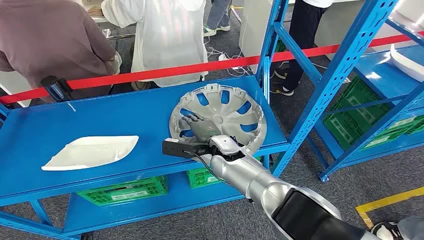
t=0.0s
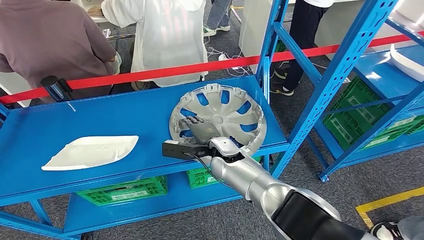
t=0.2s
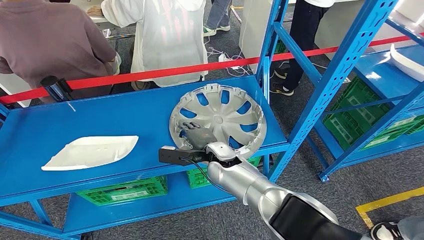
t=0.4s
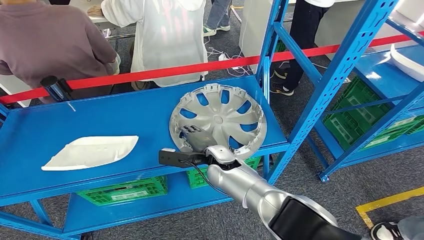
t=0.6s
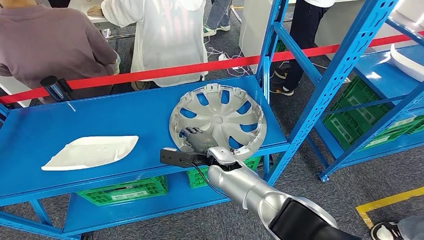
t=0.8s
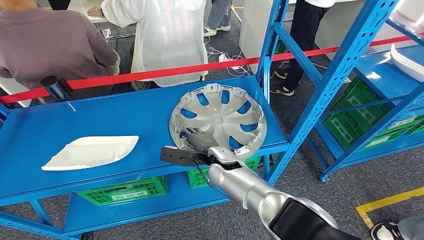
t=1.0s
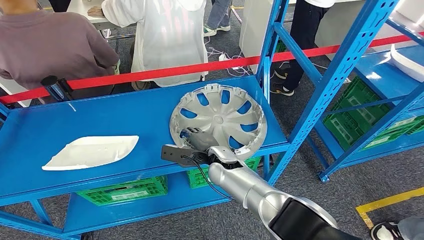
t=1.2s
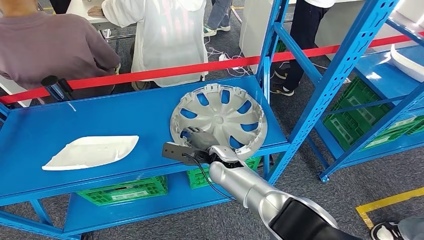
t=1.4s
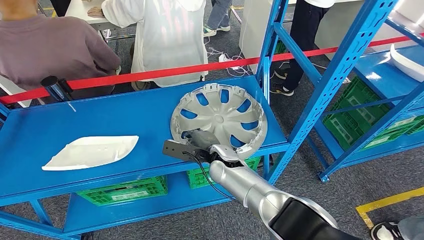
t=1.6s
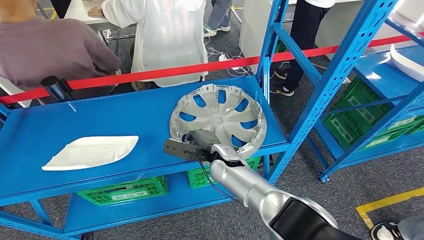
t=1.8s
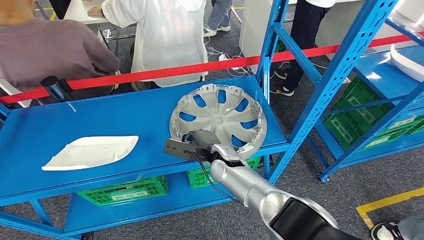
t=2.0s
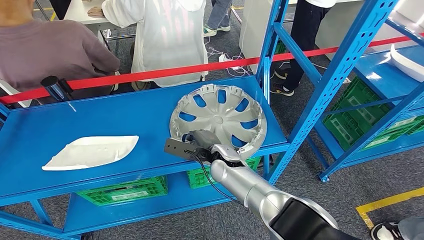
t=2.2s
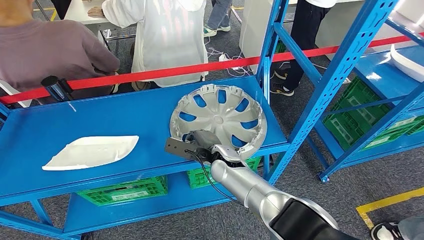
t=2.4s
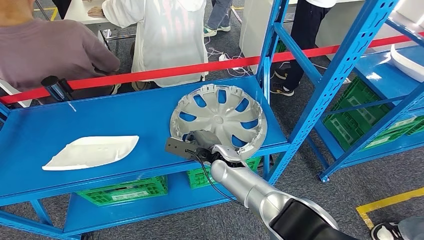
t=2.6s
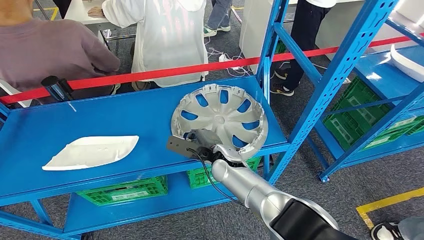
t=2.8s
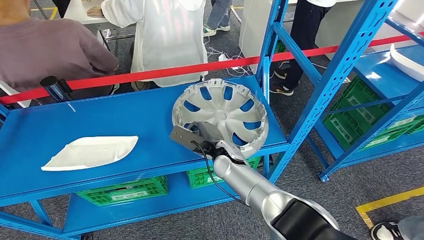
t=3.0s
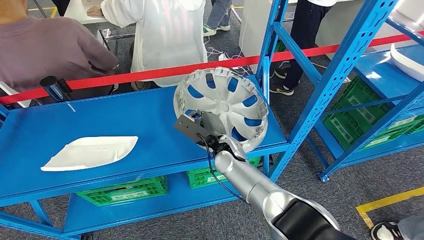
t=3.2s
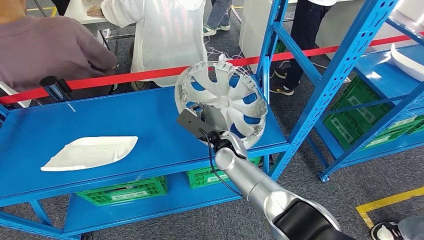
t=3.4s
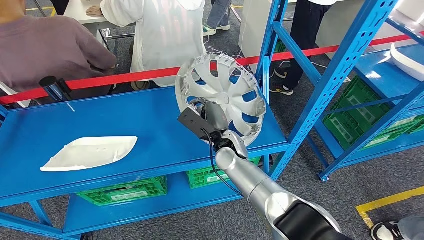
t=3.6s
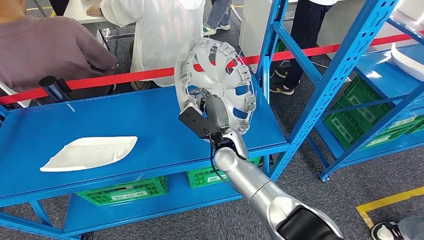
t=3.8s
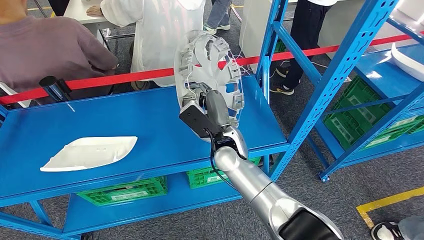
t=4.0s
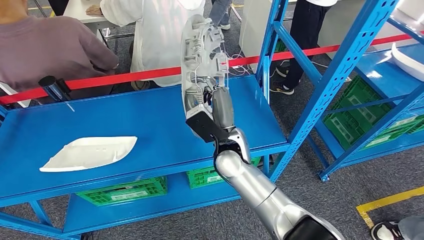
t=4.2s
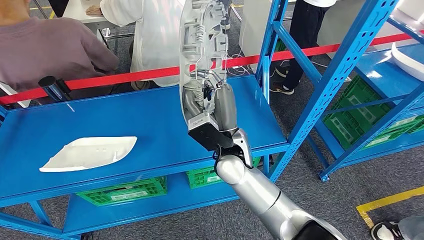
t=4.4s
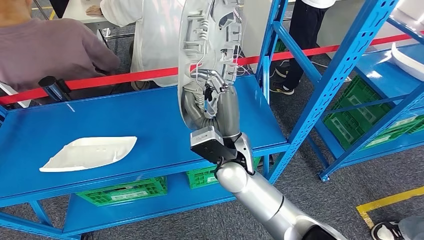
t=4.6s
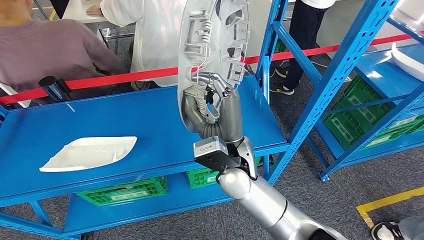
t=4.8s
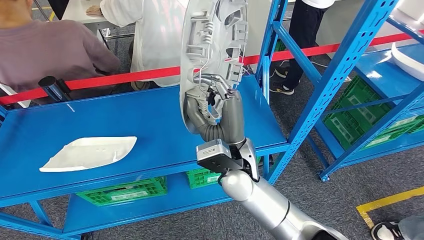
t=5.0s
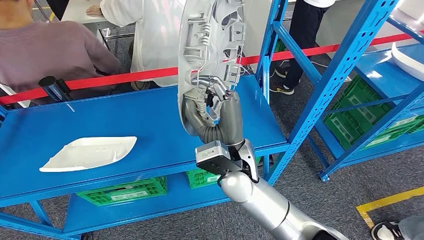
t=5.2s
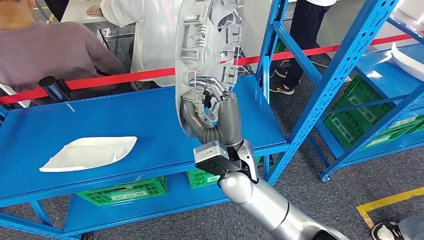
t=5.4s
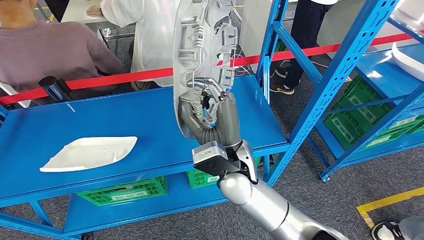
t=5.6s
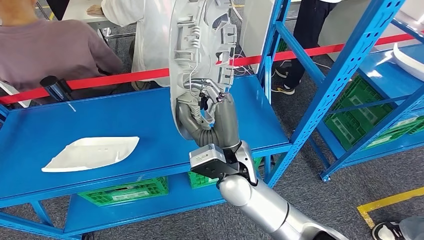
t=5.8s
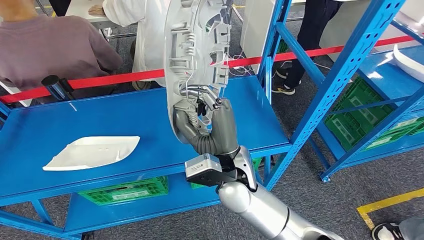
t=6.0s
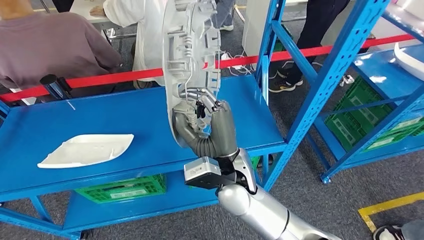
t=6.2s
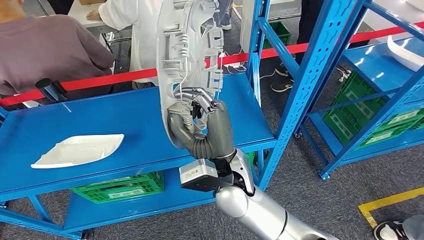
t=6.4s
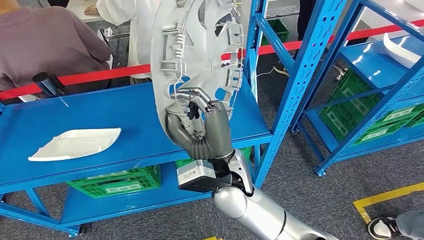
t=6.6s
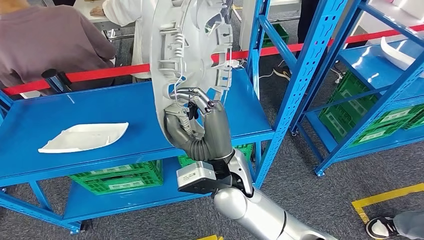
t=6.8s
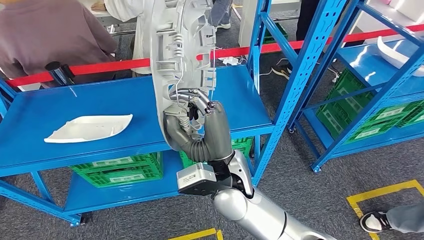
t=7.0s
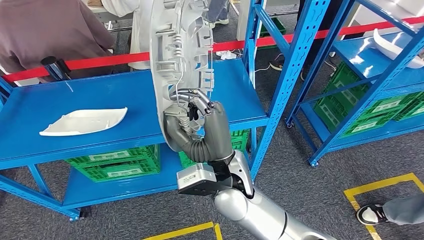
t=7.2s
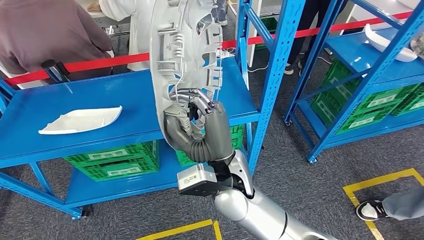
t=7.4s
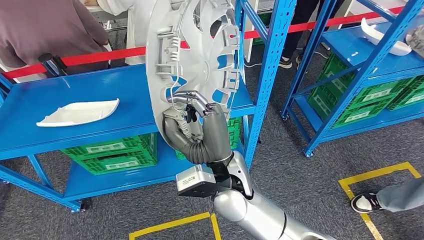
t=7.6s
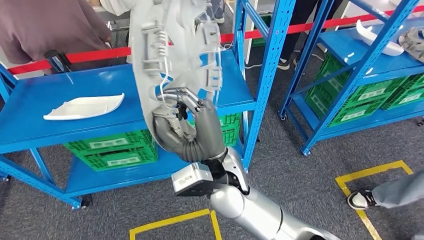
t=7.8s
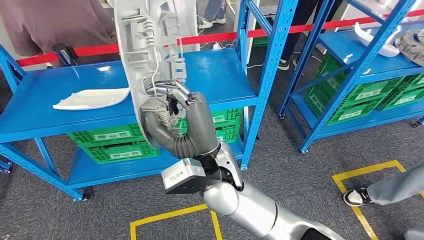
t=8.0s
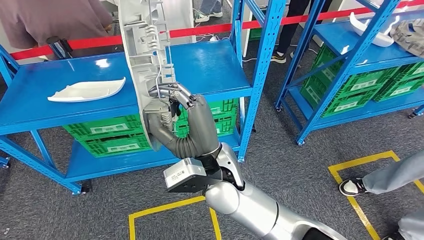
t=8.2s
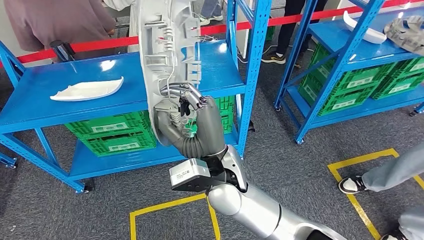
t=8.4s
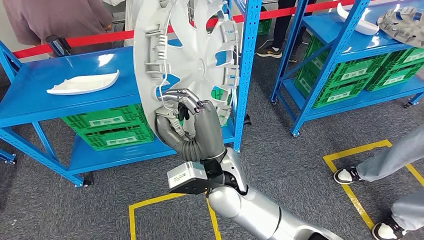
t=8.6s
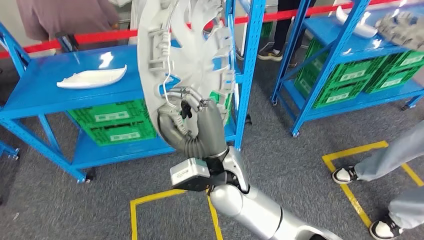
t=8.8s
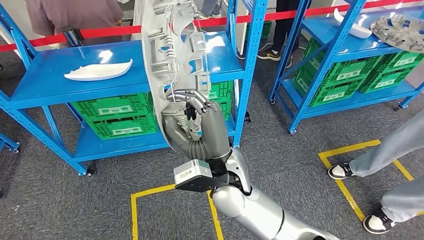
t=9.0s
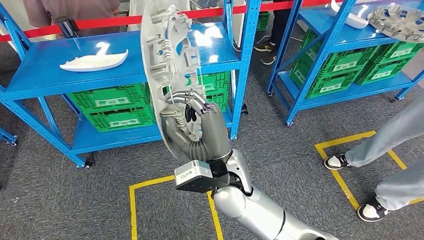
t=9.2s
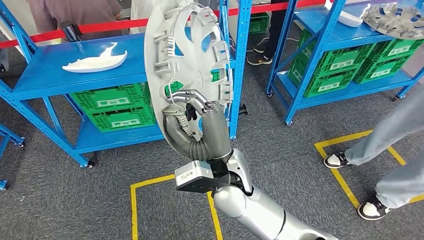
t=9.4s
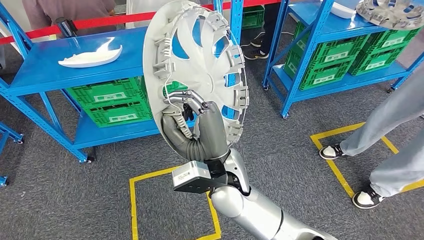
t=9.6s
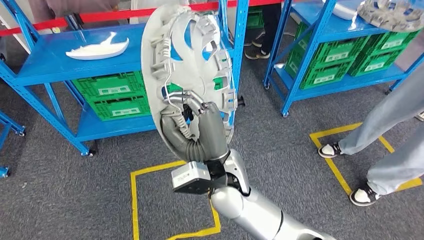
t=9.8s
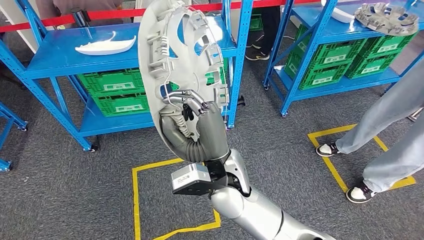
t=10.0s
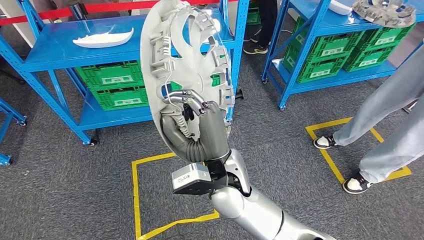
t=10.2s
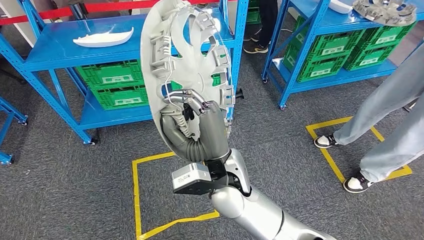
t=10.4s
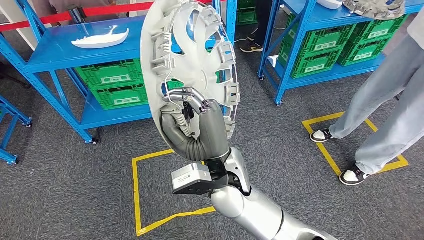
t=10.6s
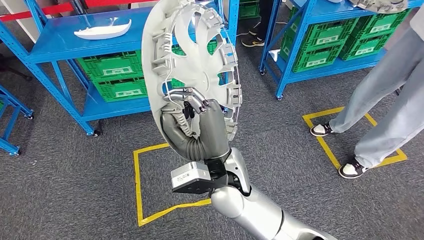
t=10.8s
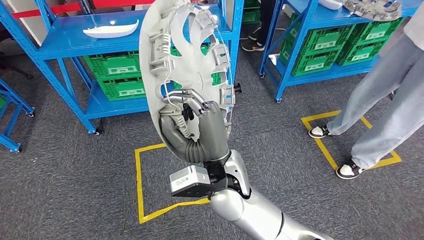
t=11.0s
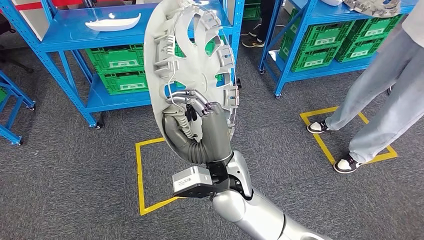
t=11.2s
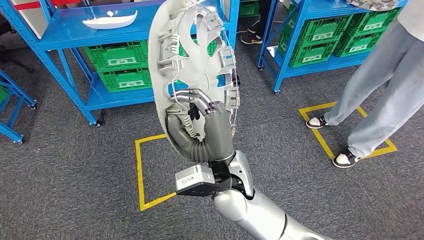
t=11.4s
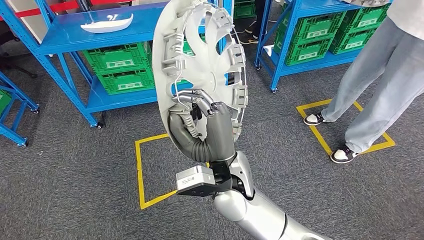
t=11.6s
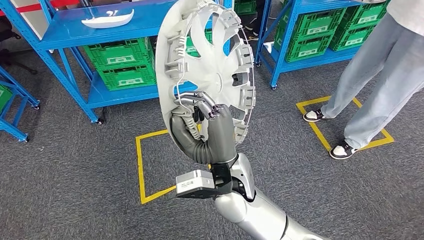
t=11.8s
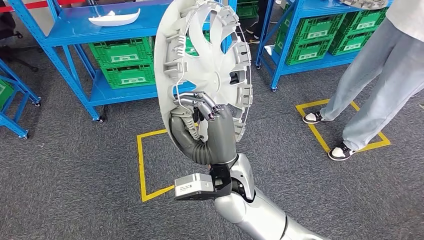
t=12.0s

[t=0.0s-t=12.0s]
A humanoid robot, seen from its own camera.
Step, t=0.0s to t=4.2s: Pick up the large material from the shelf.
t=1.6s to t=3.0s: The hands move only a little.
t=3.0s to t=4.4s: The right hand travels upward by some 10 cm.

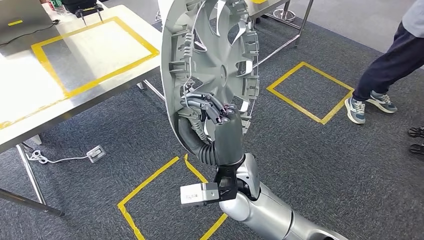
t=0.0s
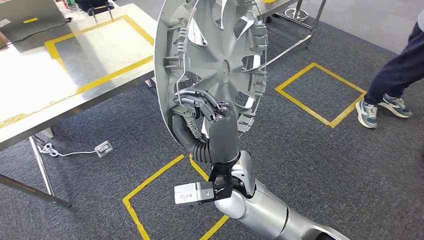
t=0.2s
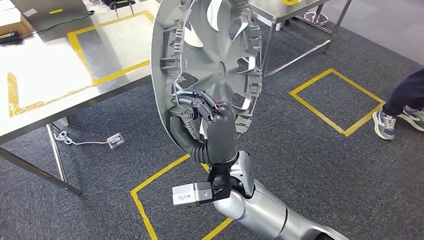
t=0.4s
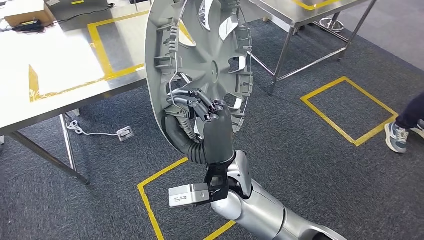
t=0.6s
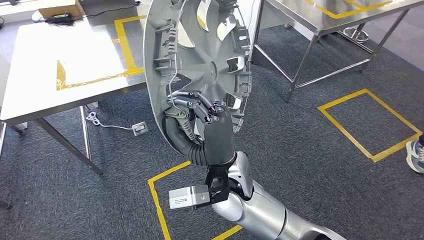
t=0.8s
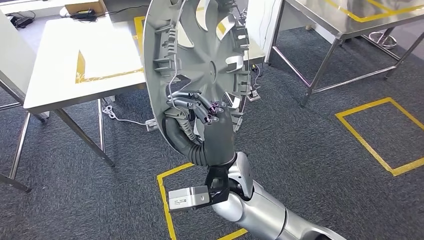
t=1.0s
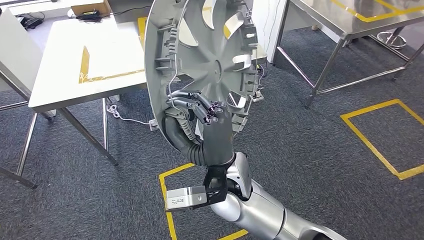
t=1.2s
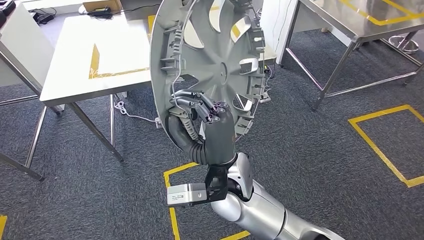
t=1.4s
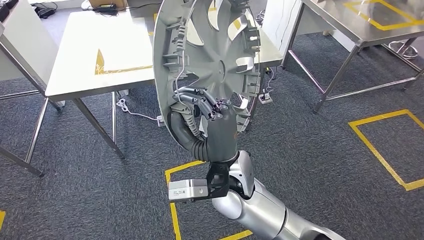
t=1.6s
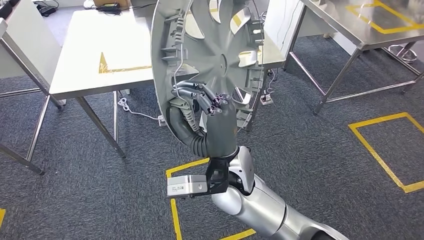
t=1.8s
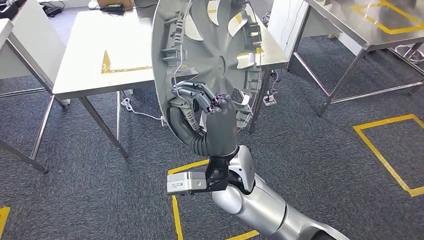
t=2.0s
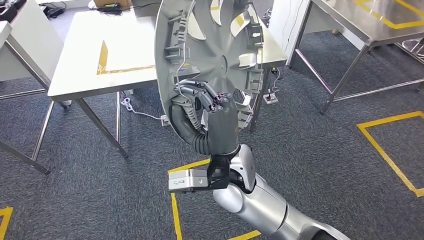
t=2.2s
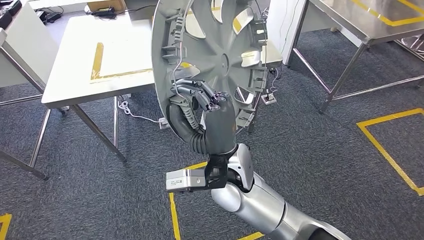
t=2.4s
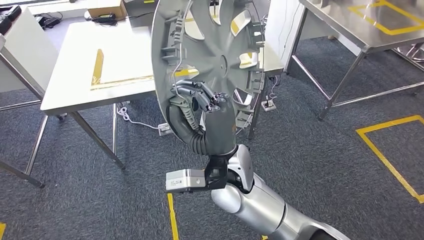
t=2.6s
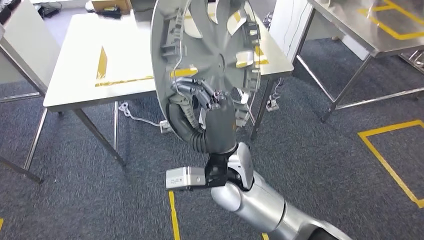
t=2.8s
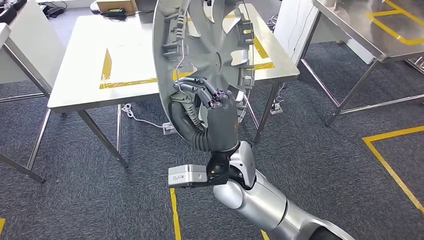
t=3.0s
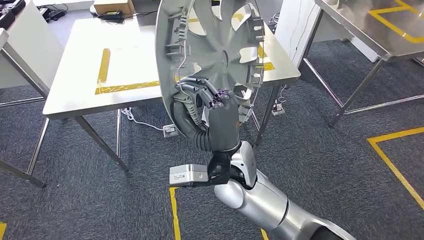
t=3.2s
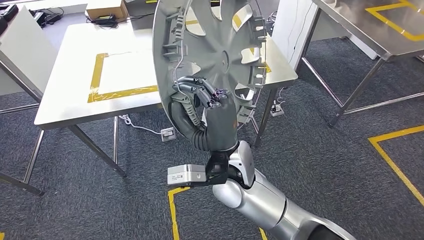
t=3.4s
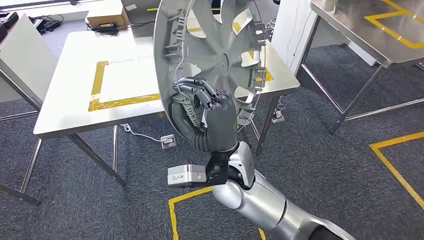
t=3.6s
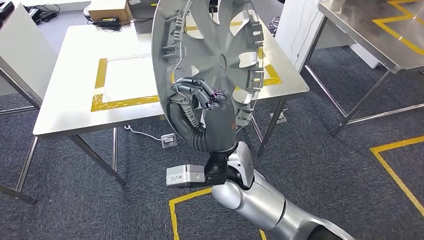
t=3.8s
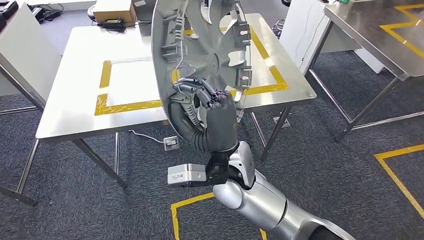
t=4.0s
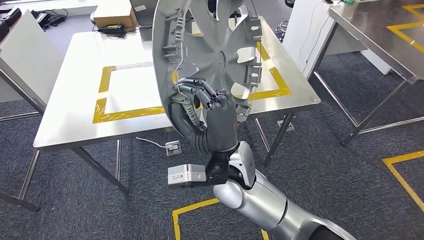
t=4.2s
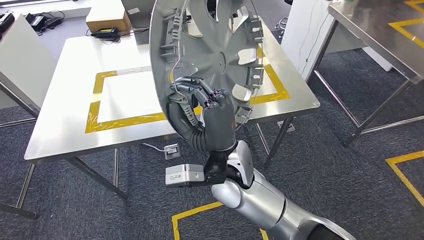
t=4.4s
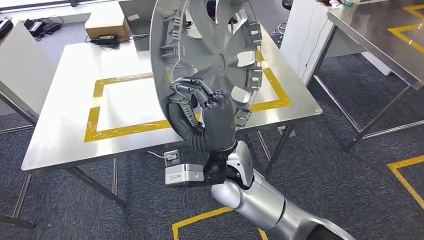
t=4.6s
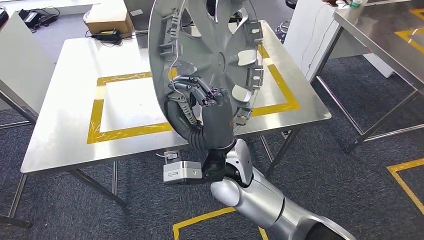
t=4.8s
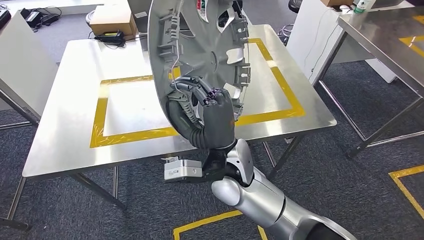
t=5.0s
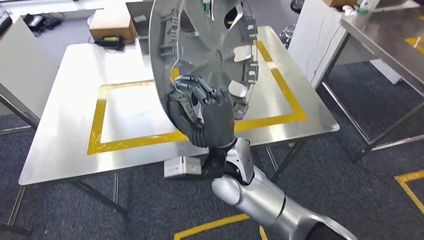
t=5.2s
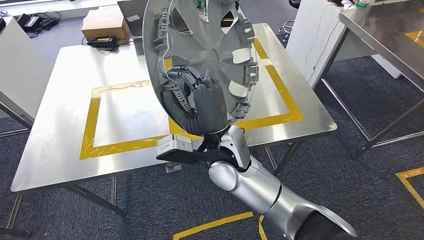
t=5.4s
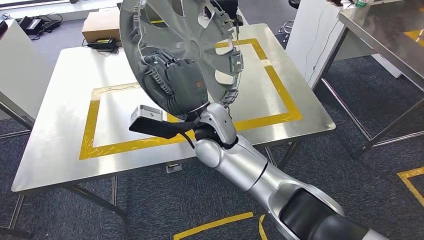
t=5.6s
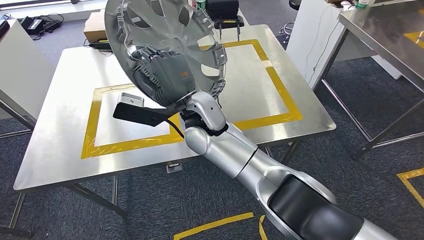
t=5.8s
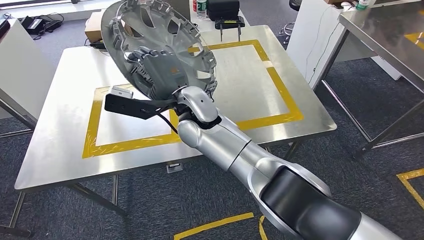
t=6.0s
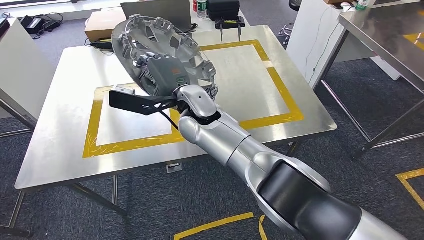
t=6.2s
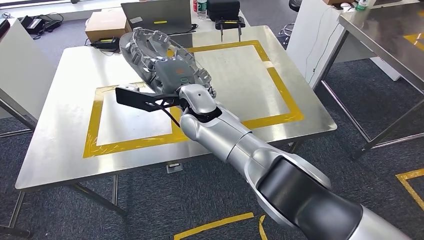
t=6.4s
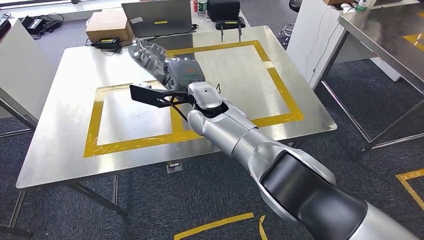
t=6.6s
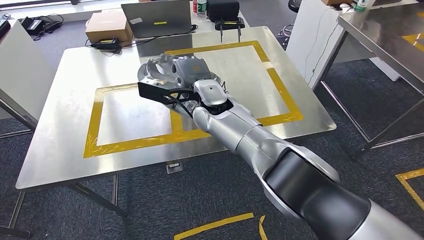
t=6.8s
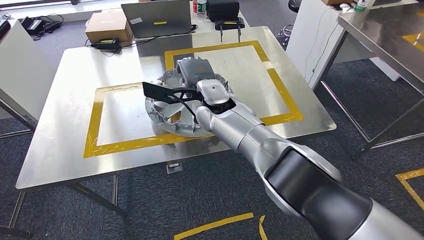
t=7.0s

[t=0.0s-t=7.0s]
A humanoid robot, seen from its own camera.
Step, t=0.0s to t=5.8s: Move the large material to the workbench.
